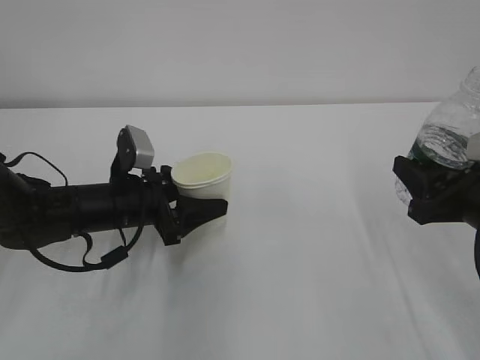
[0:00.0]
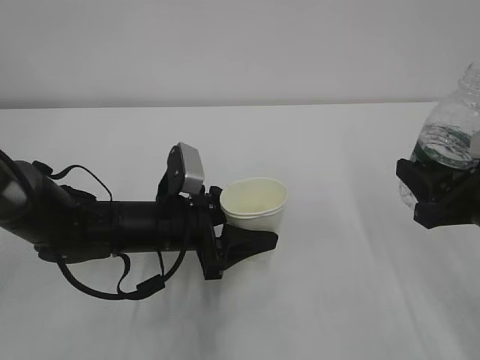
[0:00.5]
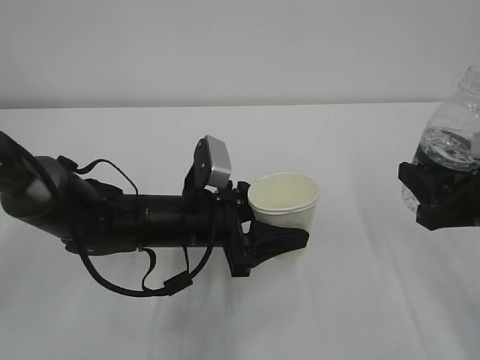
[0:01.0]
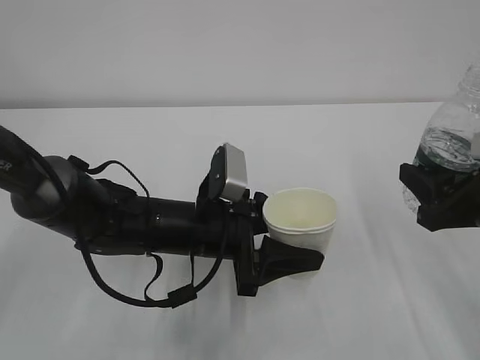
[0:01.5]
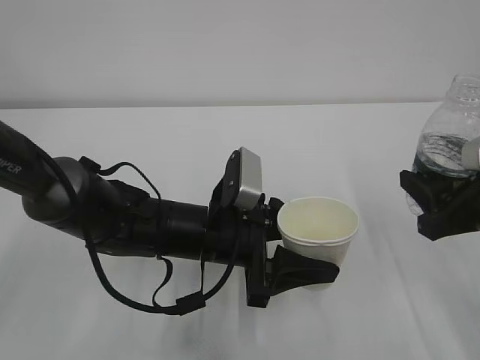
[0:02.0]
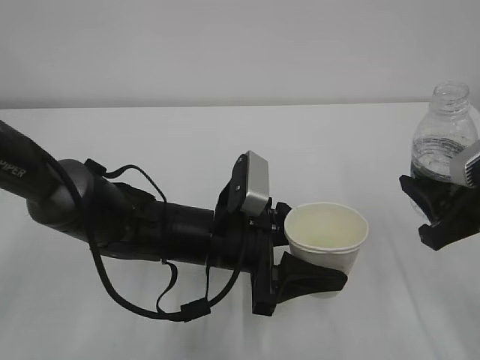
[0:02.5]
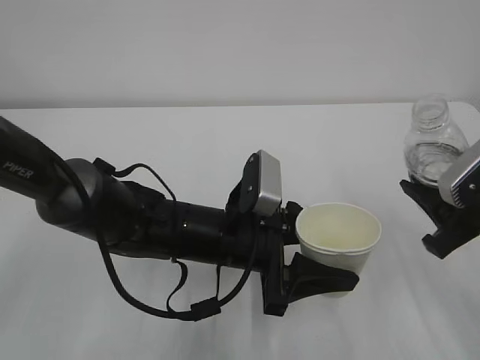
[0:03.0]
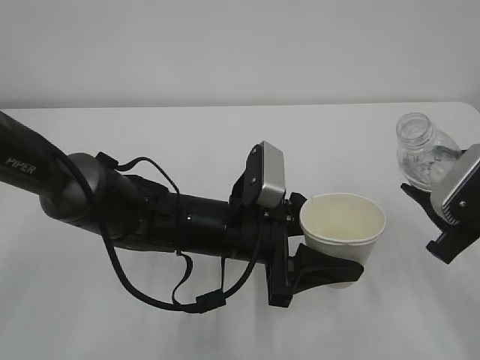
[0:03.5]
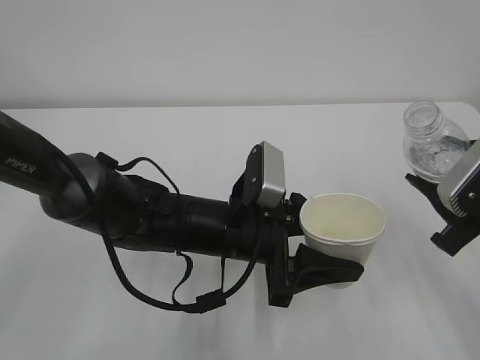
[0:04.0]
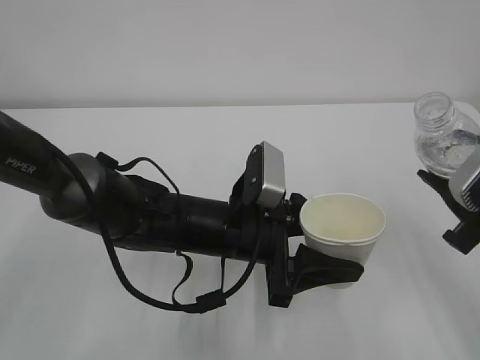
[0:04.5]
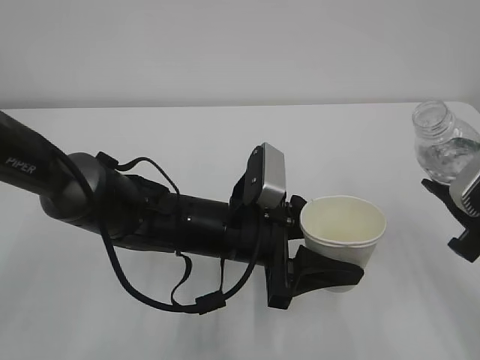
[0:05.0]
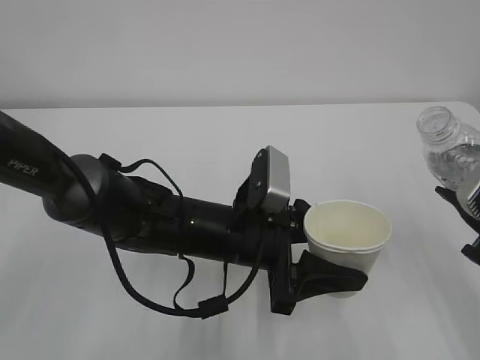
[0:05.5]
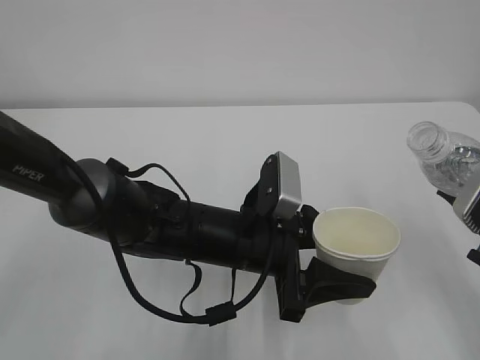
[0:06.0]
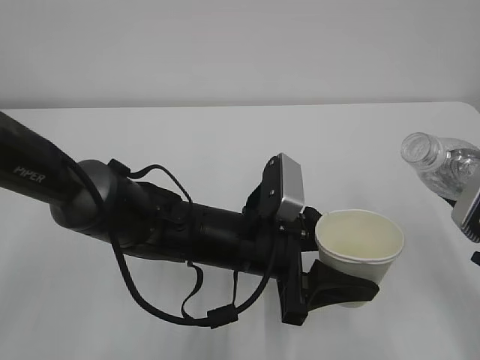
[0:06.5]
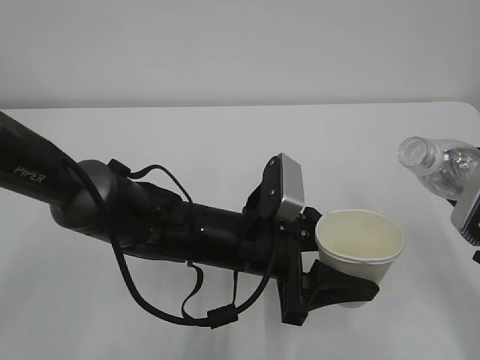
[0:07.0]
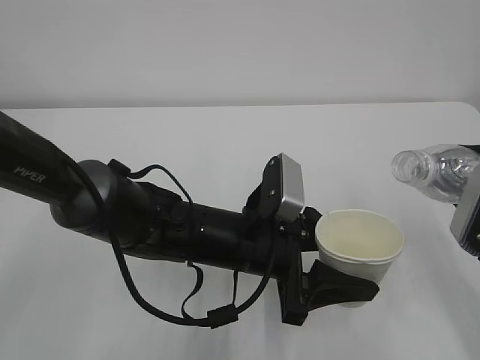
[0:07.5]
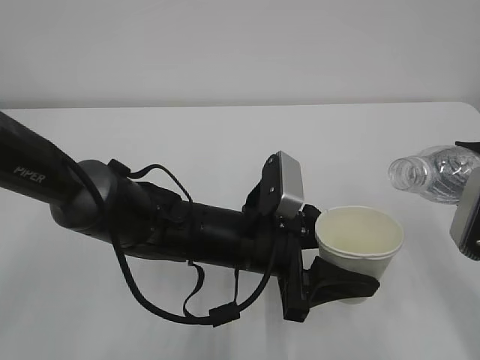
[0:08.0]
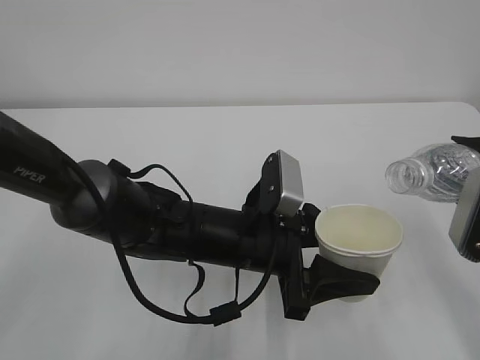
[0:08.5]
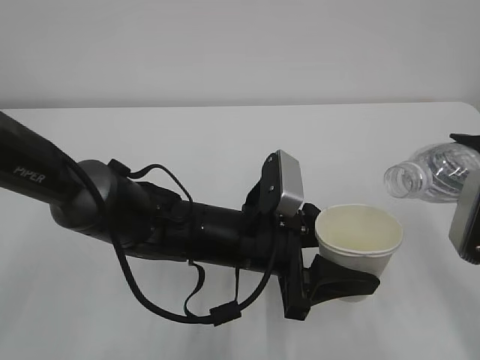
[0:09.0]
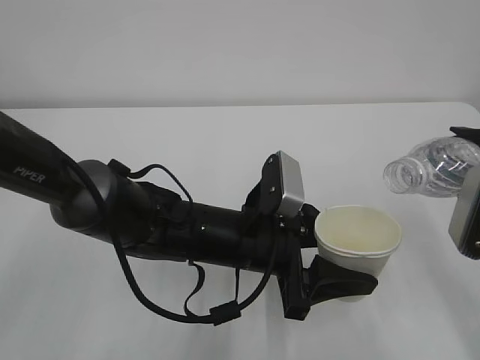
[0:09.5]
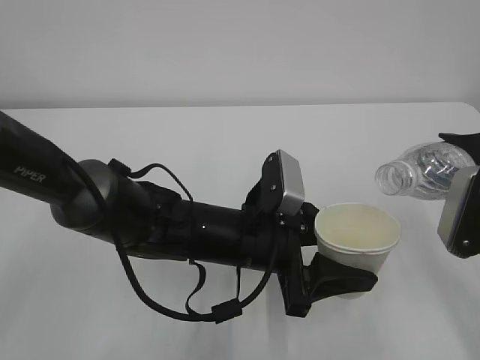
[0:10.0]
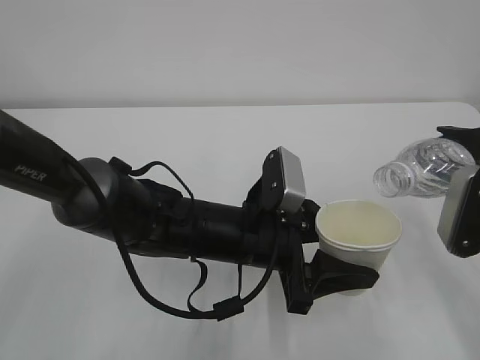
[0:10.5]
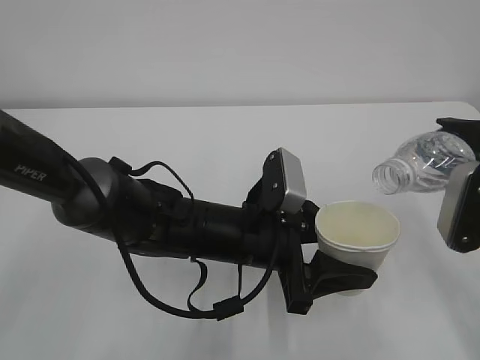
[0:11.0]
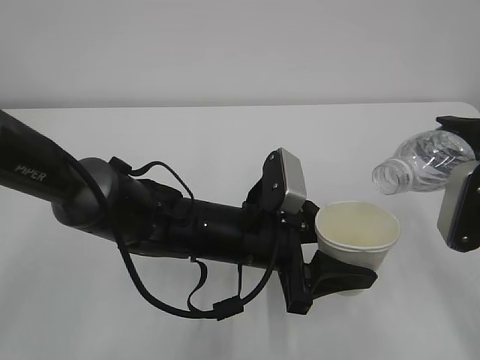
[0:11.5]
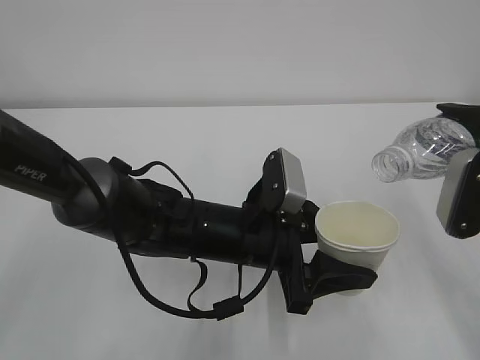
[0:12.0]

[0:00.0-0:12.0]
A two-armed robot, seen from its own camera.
0:00.0 to 0:02.0: The left gripper heads to the right and backward, covering roughly 15 cm.
0:04.0 to 0:06.0: The grippers move only a little.
0:06.0 to 0:08.0: The grippers make only small movements.
0:08.0 to 0:12.0: The grippers stay close to where they were, moving slightly.

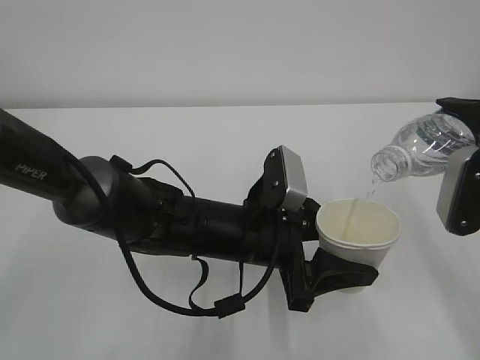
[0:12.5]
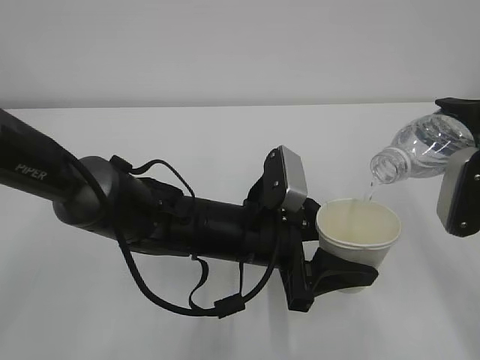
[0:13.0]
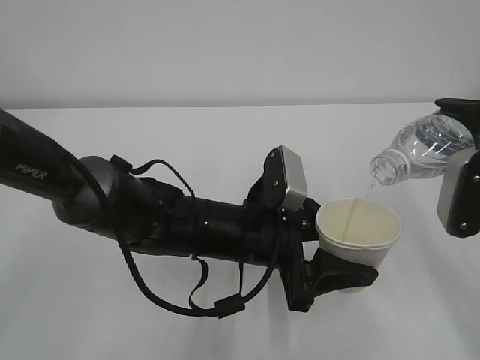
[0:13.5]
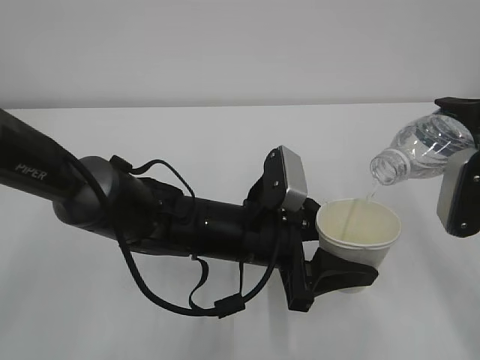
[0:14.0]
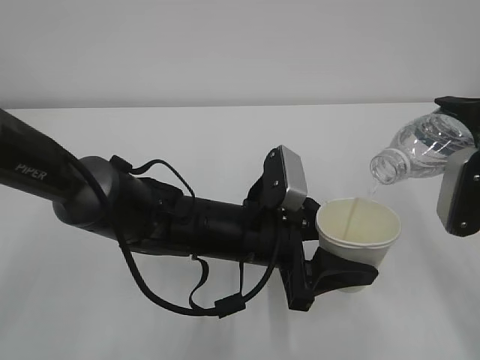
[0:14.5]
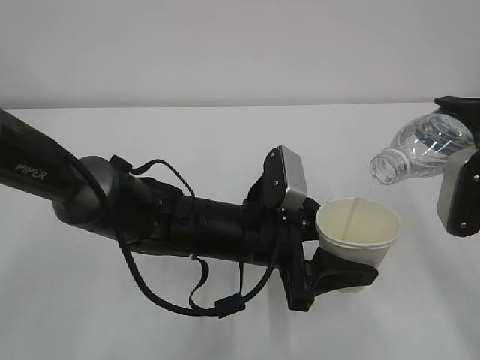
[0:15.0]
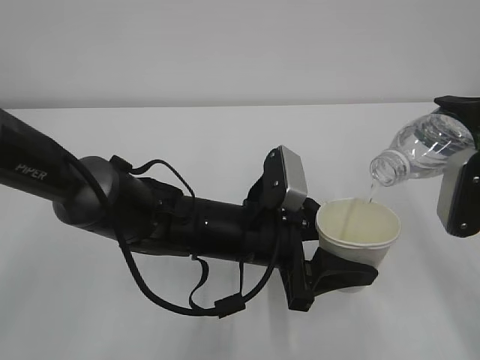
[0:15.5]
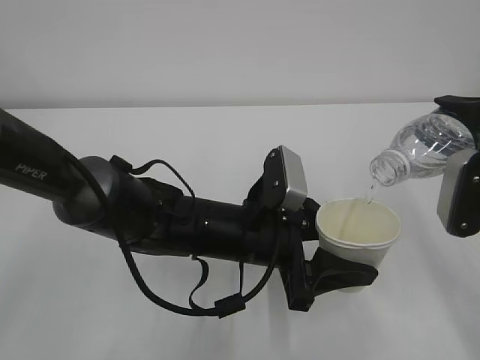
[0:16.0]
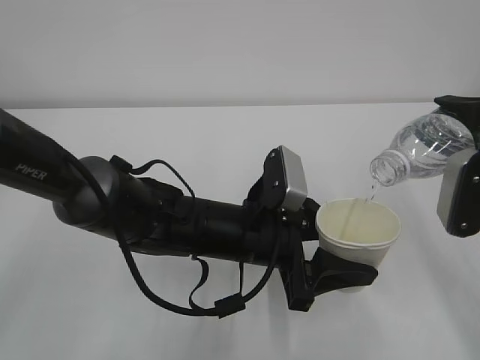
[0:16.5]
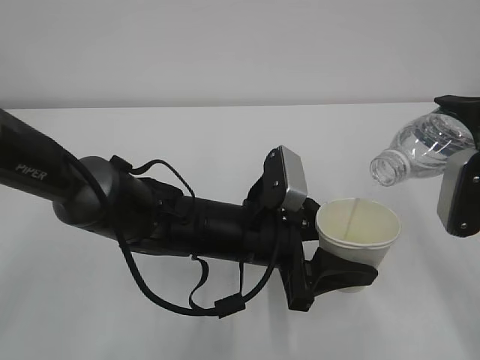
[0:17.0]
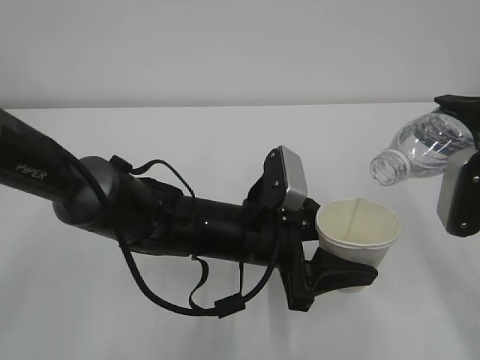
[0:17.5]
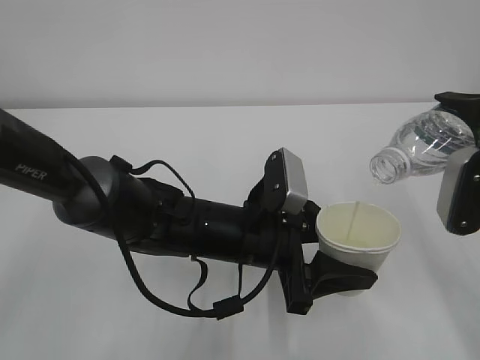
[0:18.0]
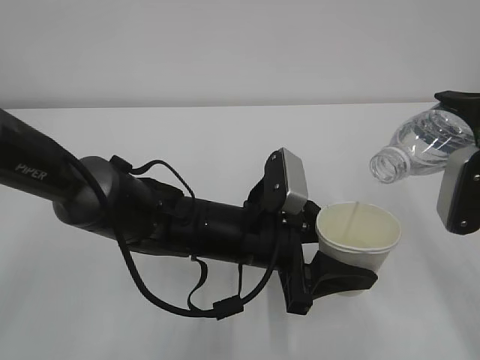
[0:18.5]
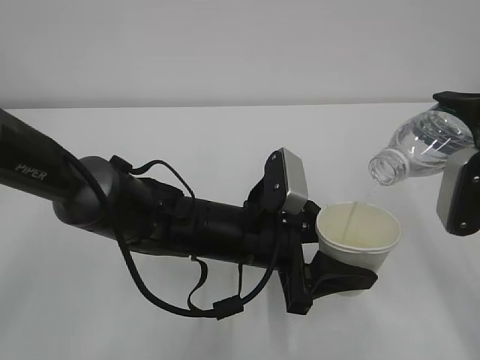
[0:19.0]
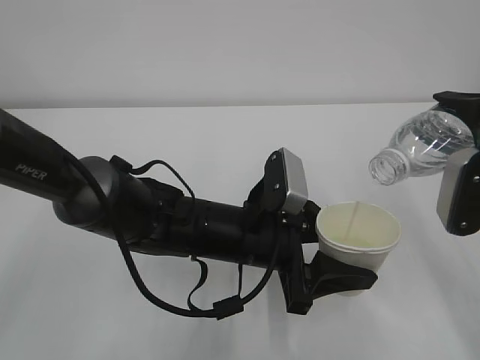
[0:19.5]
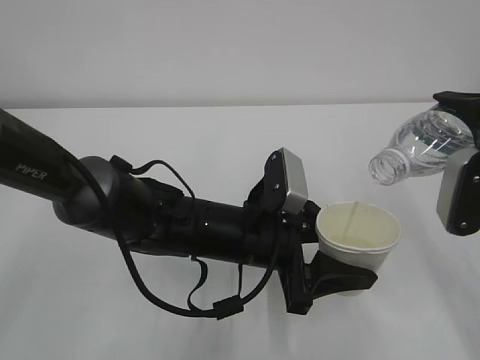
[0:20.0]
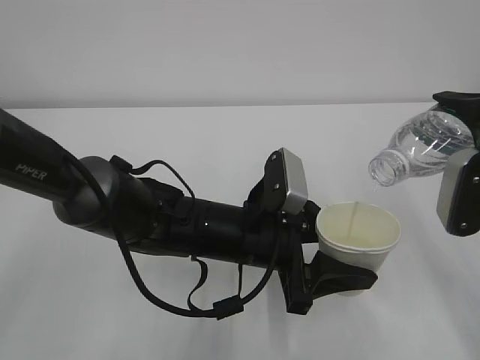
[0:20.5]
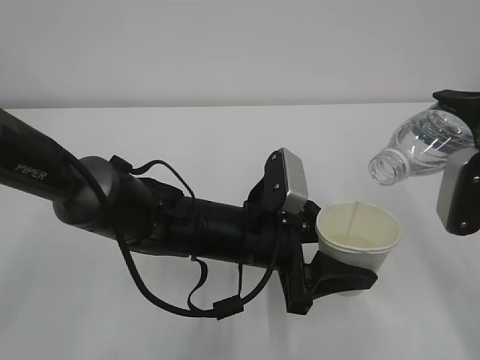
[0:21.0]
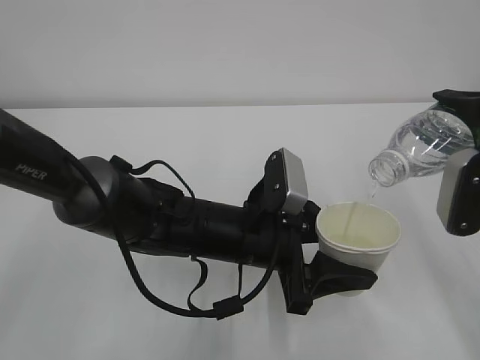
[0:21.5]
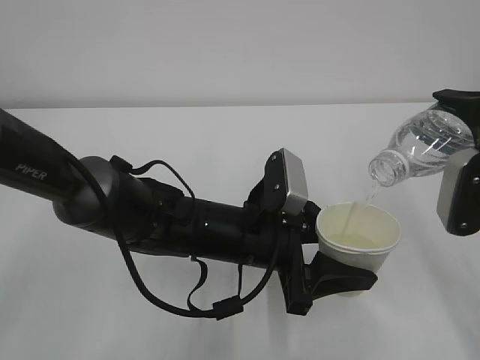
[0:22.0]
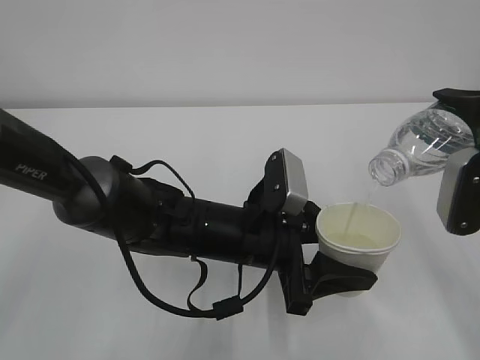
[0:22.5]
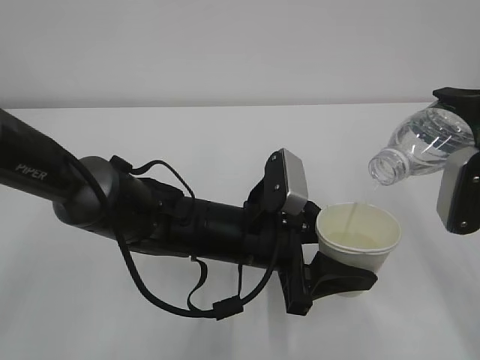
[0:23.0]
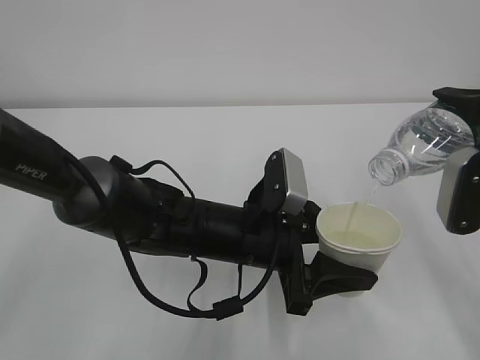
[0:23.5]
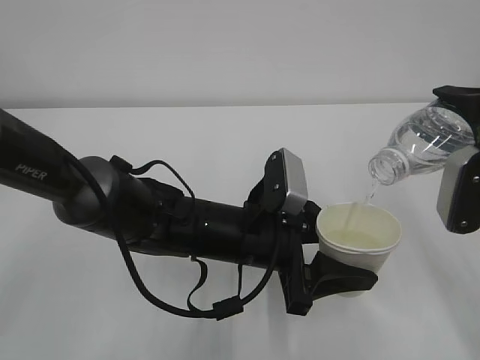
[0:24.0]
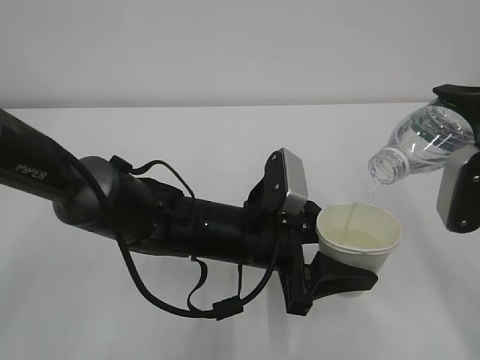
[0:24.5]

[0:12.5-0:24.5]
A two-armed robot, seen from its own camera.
0:12.5 to 0:20.5: Both grippers stay put.
0:20.5 to 0:24.5: Neither gripper changes place.

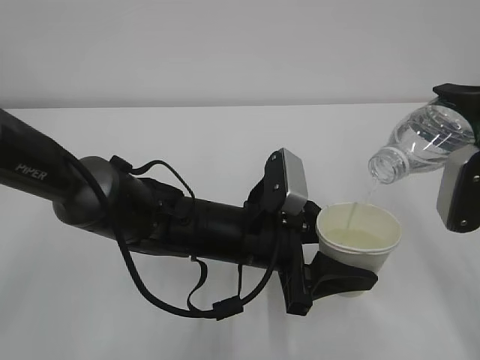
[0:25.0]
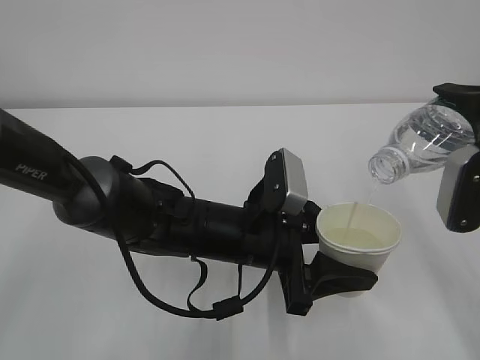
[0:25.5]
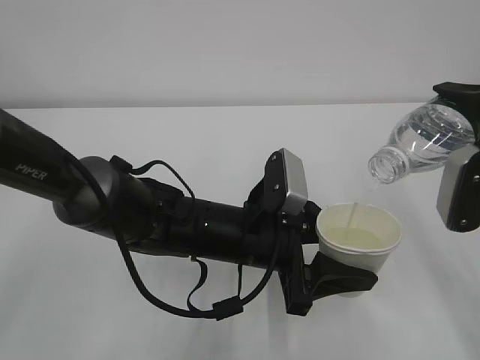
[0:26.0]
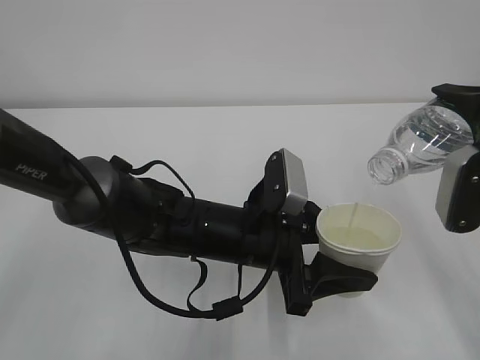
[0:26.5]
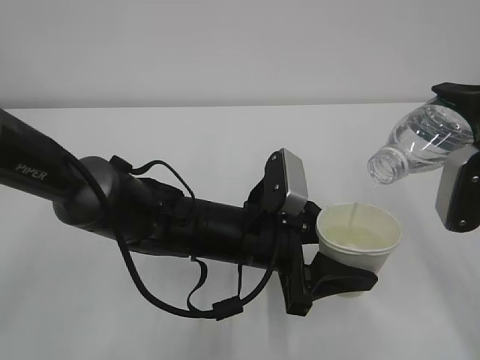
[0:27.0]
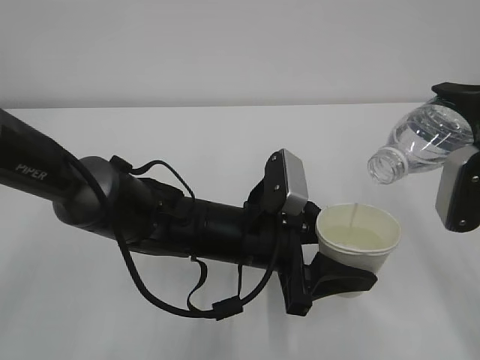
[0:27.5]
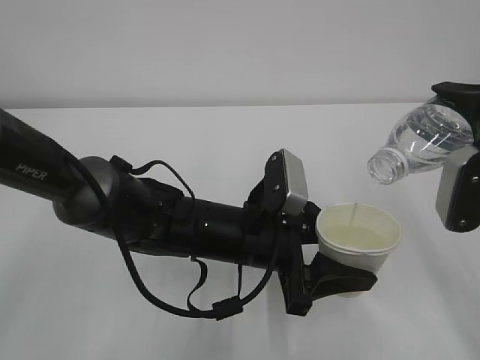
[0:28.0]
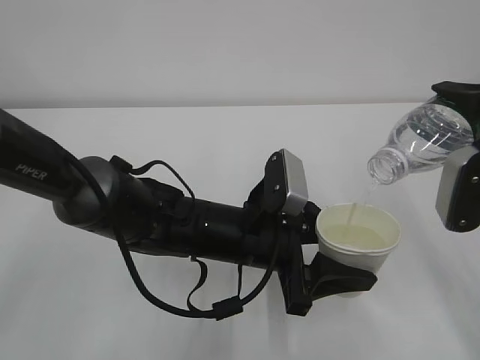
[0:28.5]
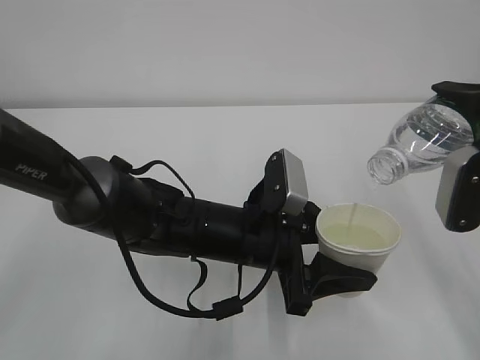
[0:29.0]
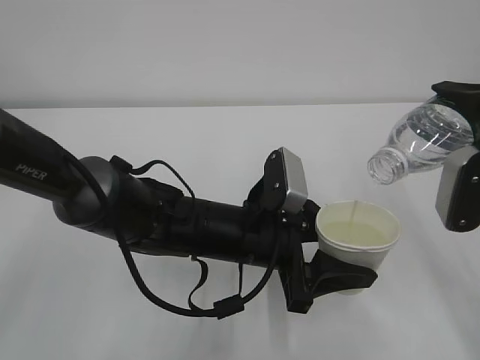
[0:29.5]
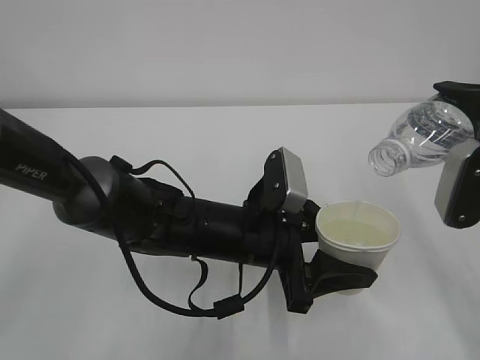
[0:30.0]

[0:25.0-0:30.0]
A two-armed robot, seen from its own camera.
0:25.0 to 0:30.0: Both grippers stay about where they are.
